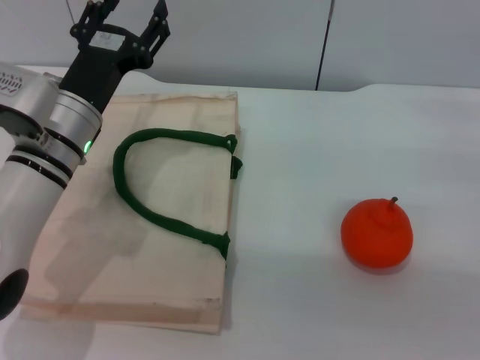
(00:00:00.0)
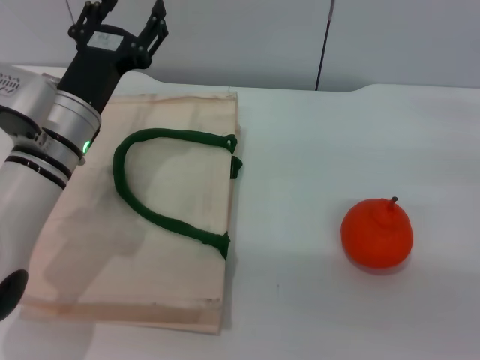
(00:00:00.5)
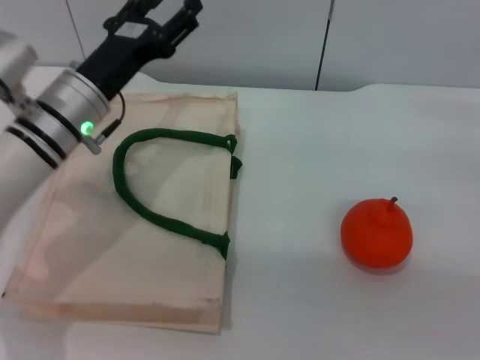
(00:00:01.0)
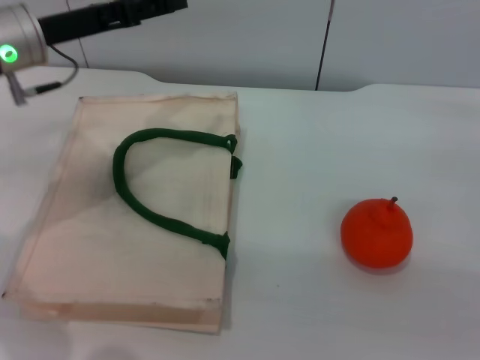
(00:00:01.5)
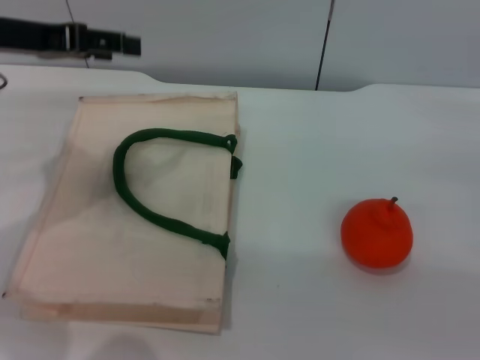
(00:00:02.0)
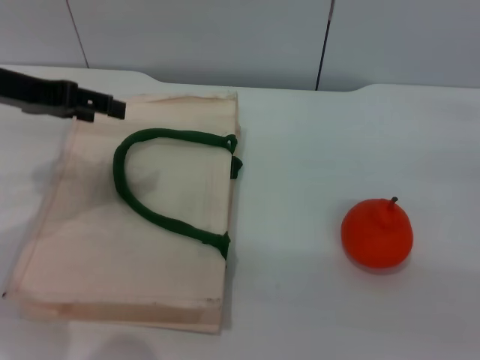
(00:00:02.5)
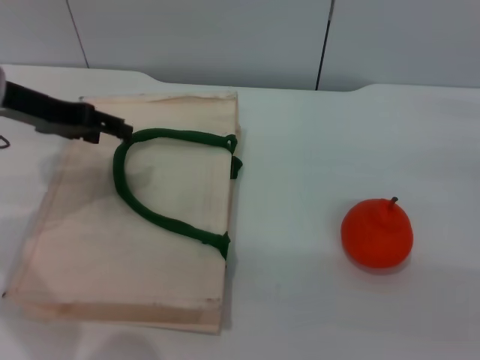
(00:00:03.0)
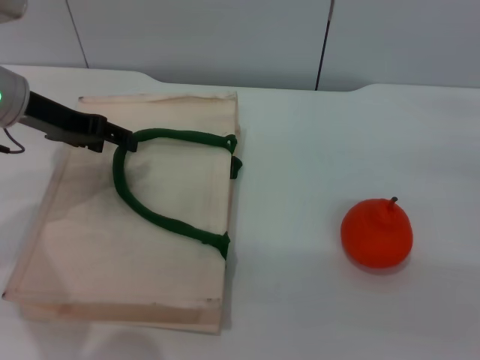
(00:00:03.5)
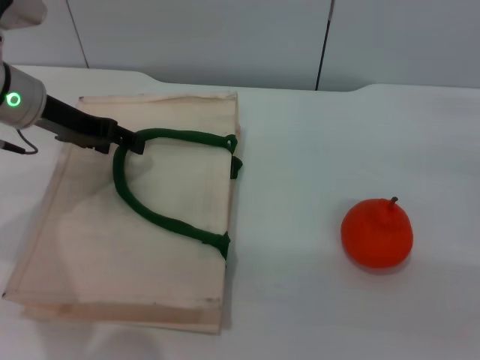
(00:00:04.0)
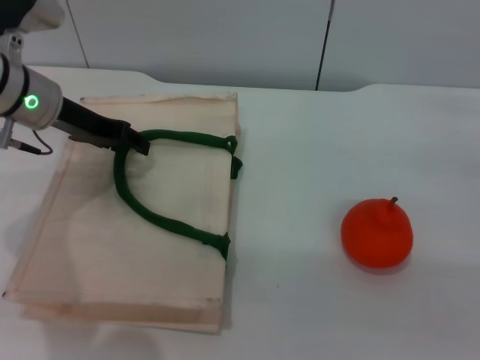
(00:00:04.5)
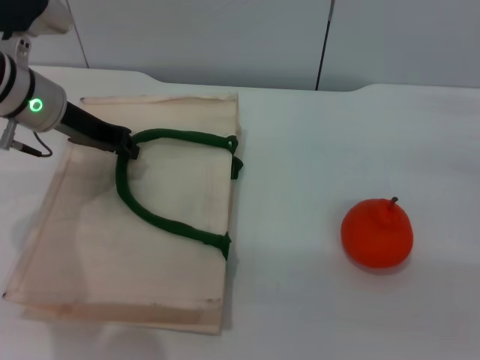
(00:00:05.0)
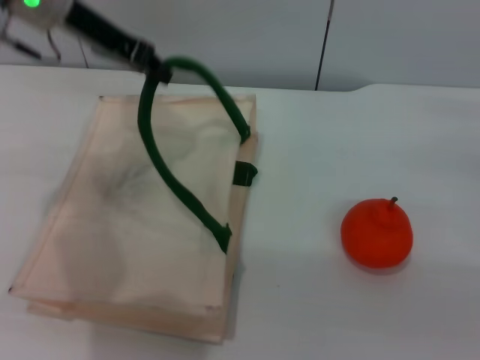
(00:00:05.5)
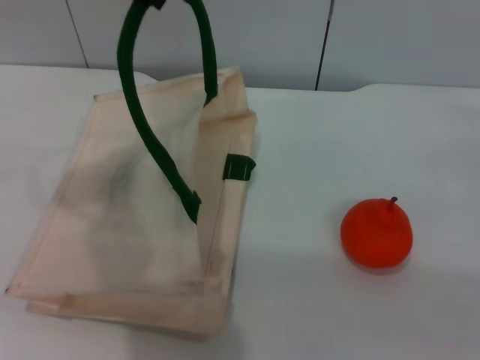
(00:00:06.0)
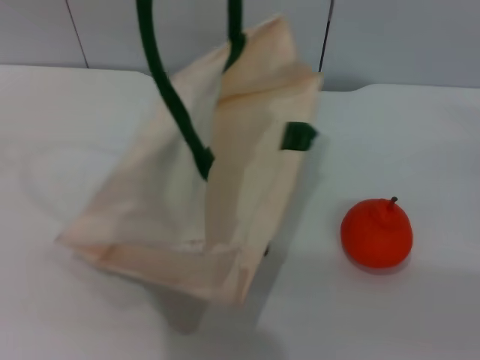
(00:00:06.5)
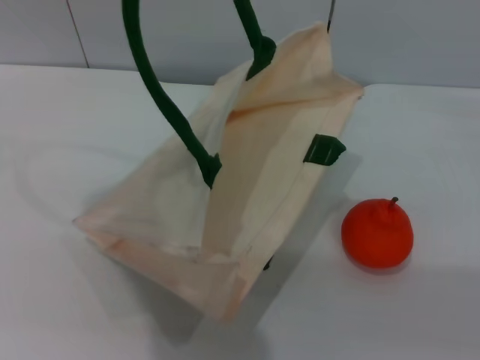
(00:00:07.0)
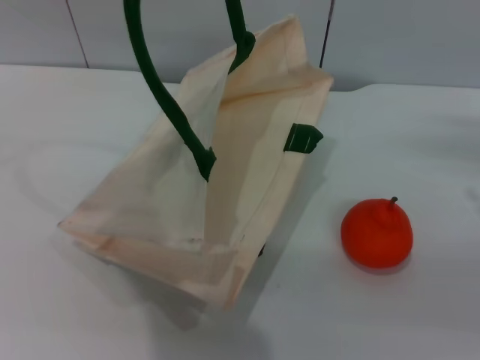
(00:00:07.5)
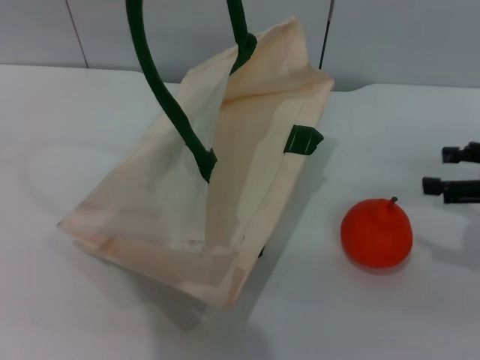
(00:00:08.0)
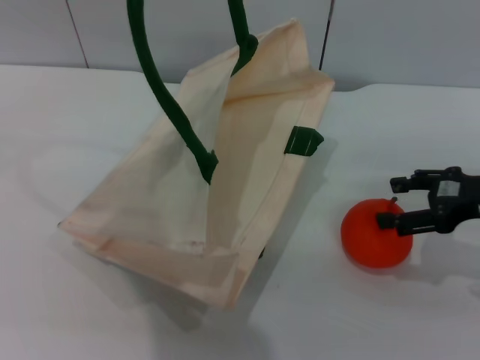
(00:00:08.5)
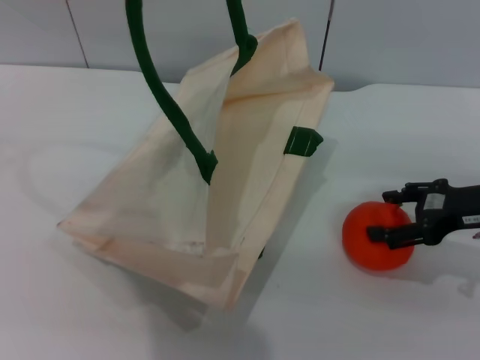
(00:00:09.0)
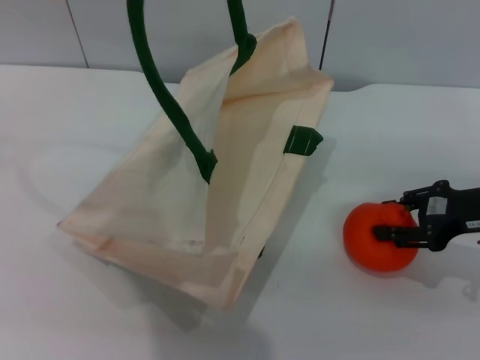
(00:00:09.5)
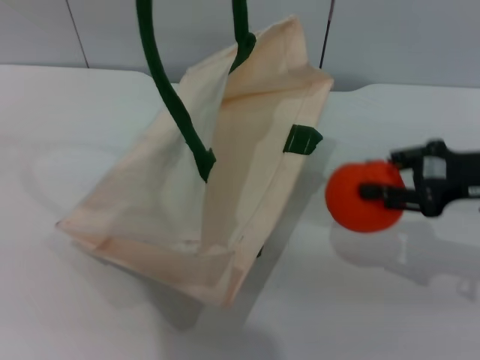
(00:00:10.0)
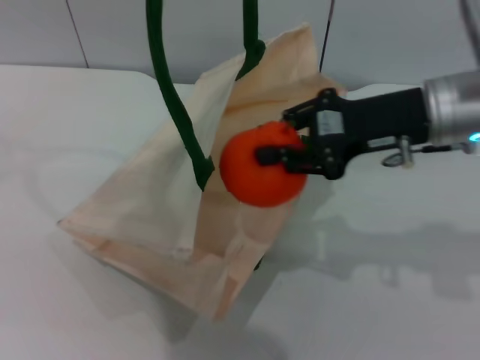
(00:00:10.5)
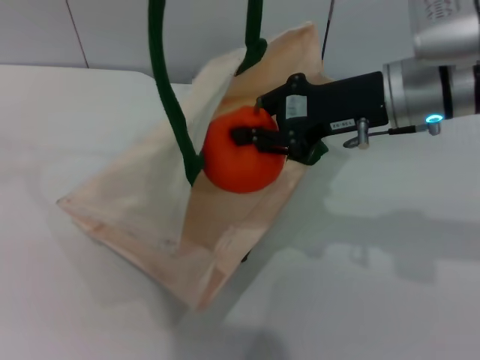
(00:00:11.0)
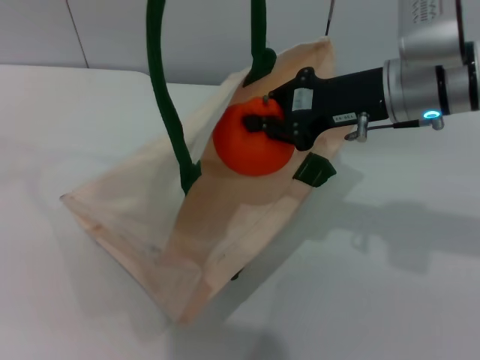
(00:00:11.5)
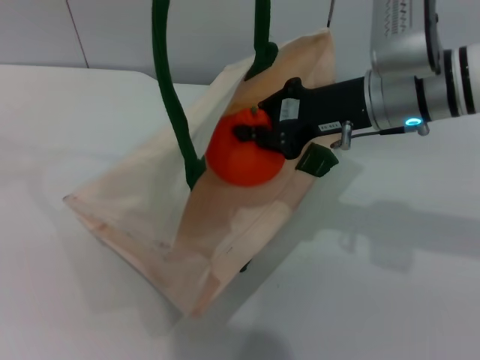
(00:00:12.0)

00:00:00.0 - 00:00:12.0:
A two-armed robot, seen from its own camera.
Task of the whole recording: pick up the orange from the table and place it in the white handbag.
Step, 00:00:00.0 - 00:00:06.5: Lift the woven bag with the left gripper to open it.
Step, 00:00:07.0 - 00:00:10.0: Pick up the orange with the right gripper.
00:00:00.0 - 00:00:02.0: The left gripper goes roughly 15 cm upward and to the left.
00:00:02.0 - 00:00:04.0: The left gripper shifts approximately 5 cm downward.
00:00:04.0 - 00:00:06.0: The left gripper is displaced upward by approximately 20 cm, and closes.
00:00:06.0 - 00:00:08.0: The left gripper shifts by some 5 cm.
00:00:08.0 - 00:00:10.0: The right gripper travels to the left by roughly 5 cm, and closes.
00:00:10.0 - 00:00:12.0: The right gripper heads to the left, covering about 15 cm, and closes up.

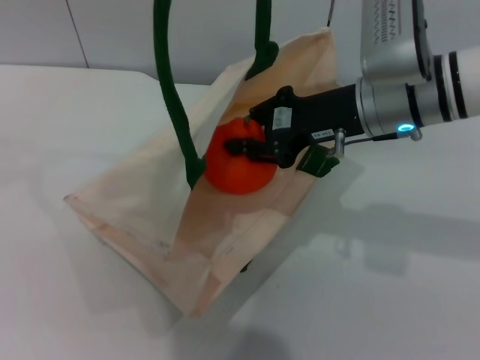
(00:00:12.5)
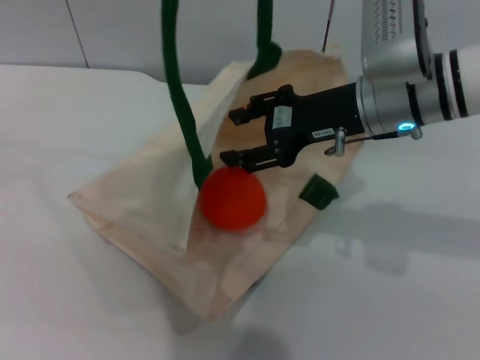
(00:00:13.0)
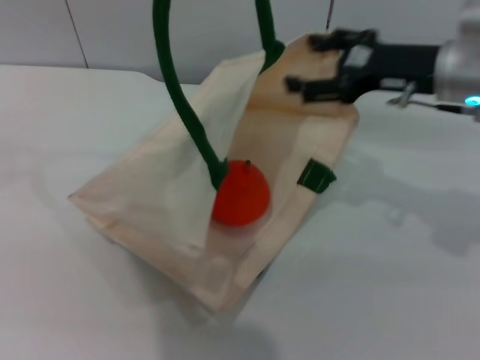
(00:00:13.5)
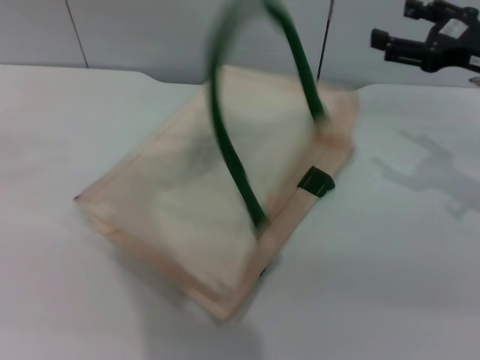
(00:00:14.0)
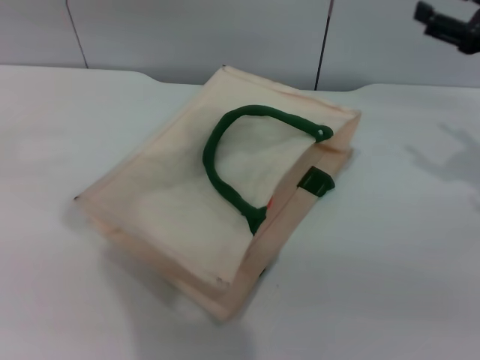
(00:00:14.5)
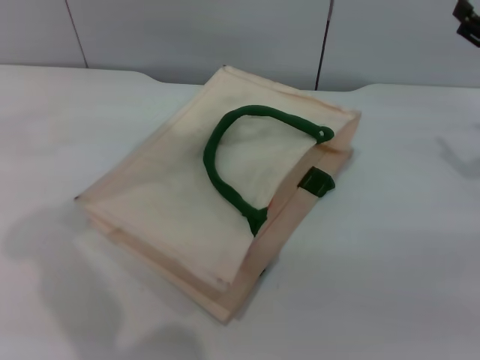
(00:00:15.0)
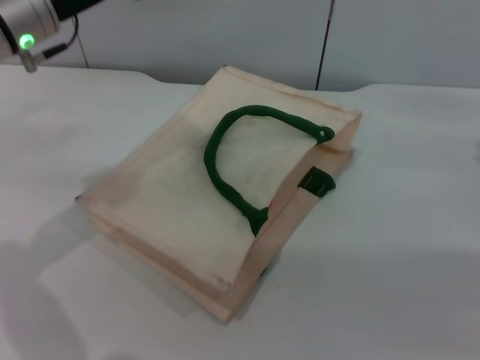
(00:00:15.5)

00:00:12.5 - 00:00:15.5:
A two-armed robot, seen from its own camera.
Task of the whole recording: pick up the orange from the table and place it in the white handbag.
Step, 00:00:13.5 - 00:00:14.0: Lower the woven bag with the left gripper to close it.
00:00:12.5 - 00:00:14.0: The right gripper travels to the right by some 15 cm, and opens its fingers.
00:00:14.0 - 00:00:15.5: The right gripper shifts about 10 cm downward and to the right; the left gripper heads downward, covering roughly 20 cm, and opens.

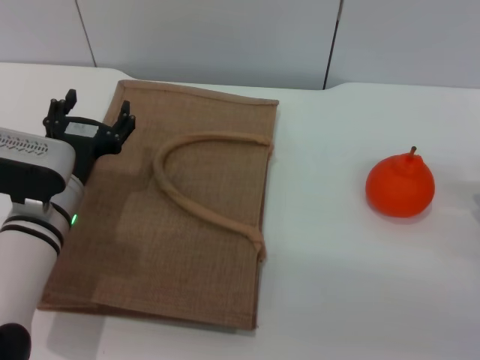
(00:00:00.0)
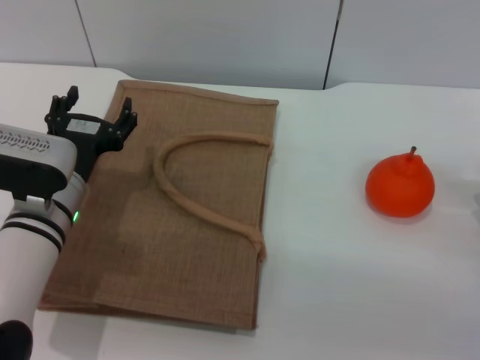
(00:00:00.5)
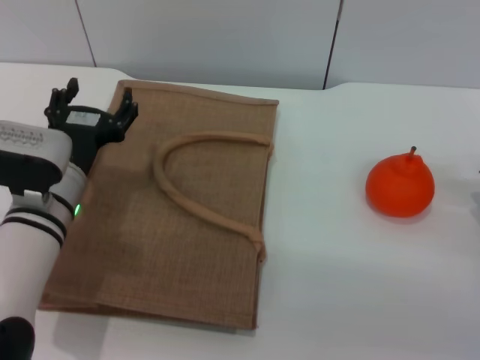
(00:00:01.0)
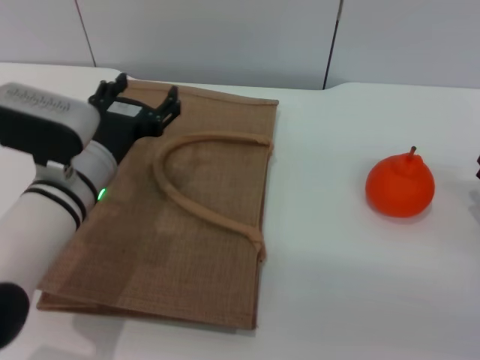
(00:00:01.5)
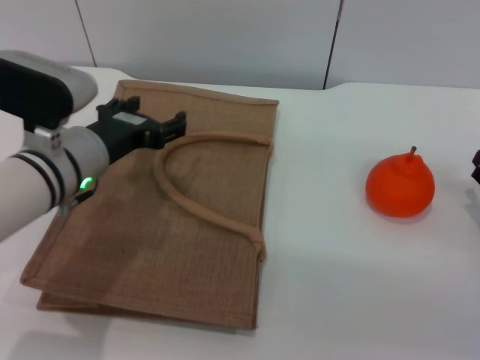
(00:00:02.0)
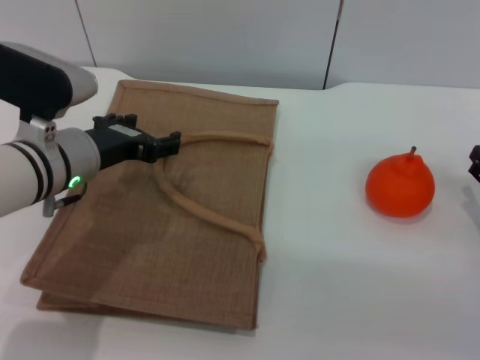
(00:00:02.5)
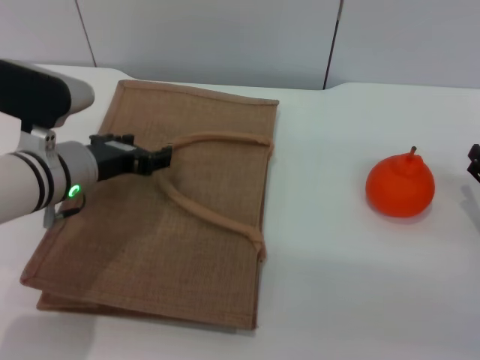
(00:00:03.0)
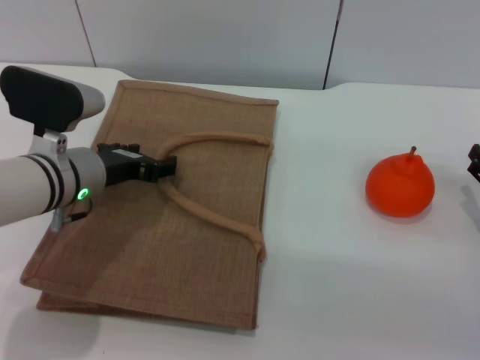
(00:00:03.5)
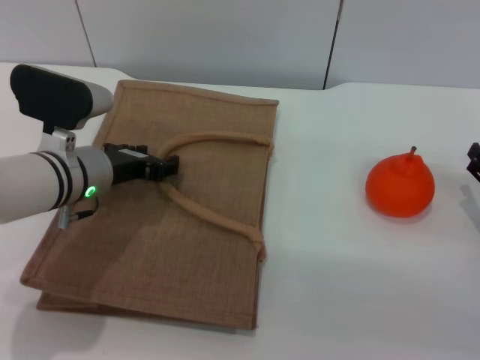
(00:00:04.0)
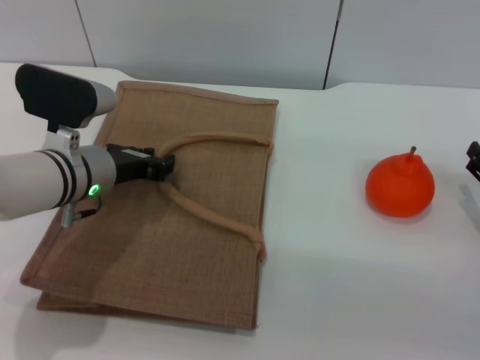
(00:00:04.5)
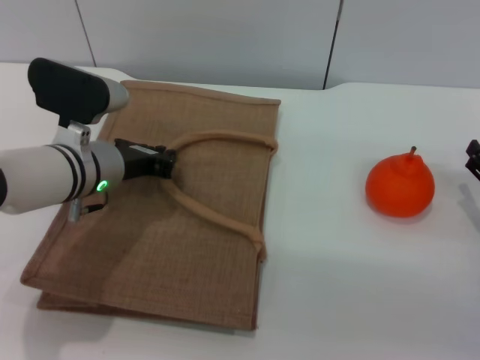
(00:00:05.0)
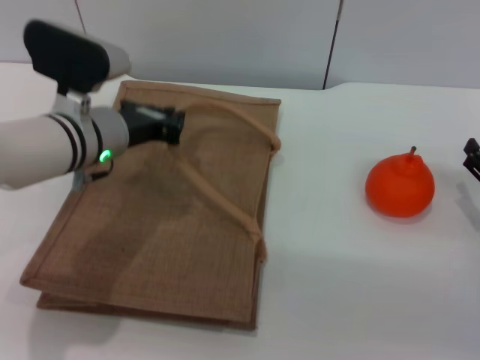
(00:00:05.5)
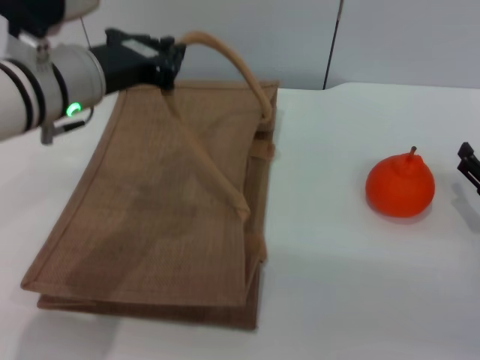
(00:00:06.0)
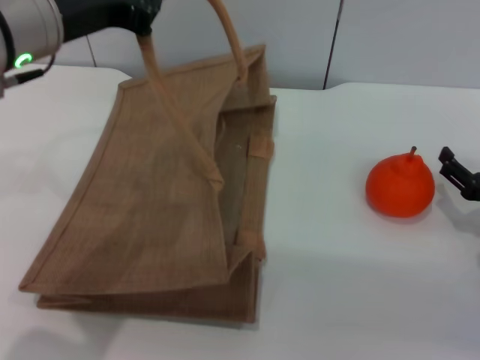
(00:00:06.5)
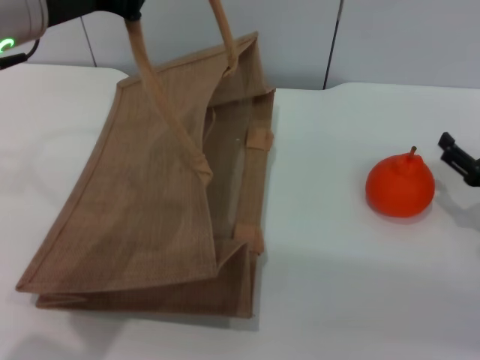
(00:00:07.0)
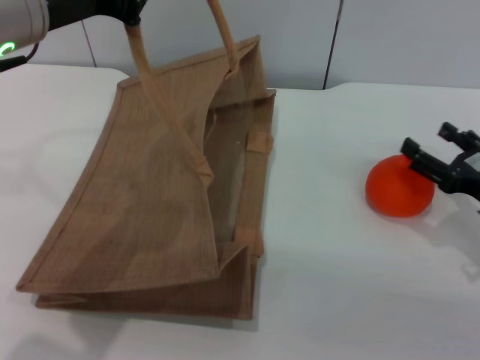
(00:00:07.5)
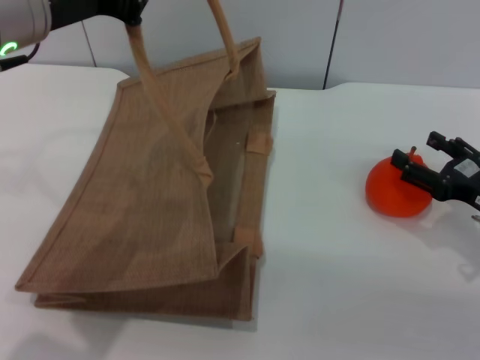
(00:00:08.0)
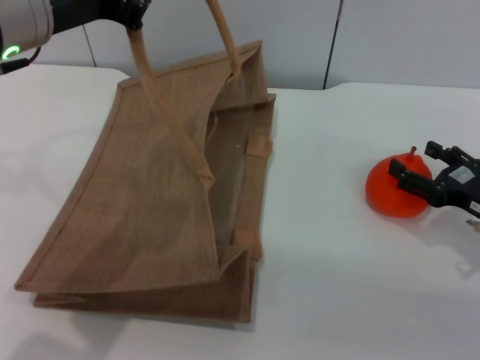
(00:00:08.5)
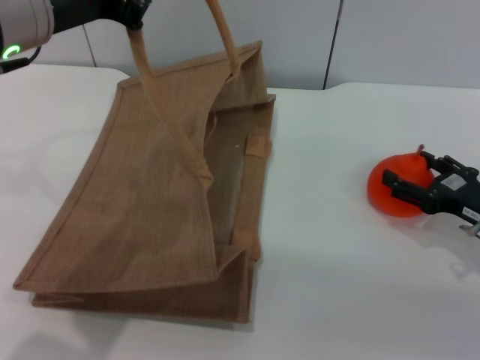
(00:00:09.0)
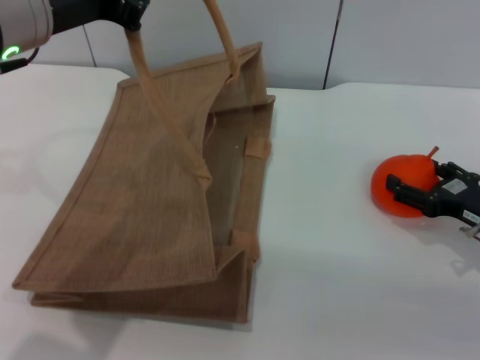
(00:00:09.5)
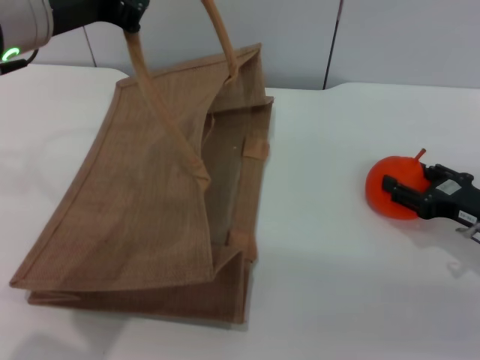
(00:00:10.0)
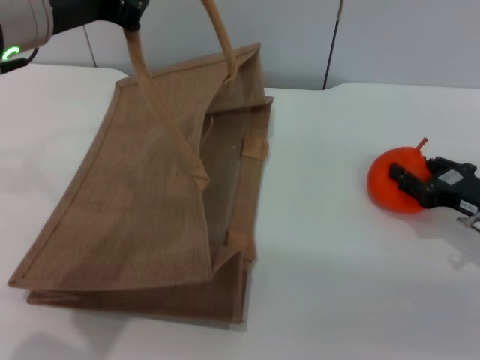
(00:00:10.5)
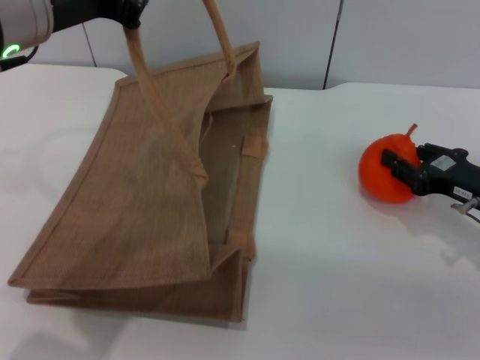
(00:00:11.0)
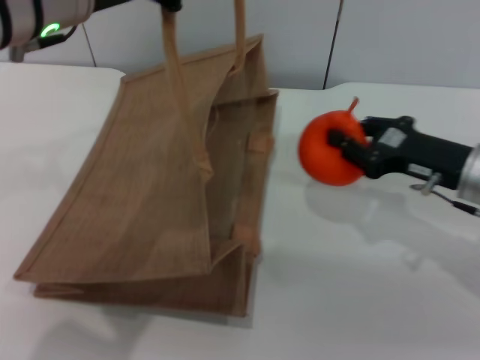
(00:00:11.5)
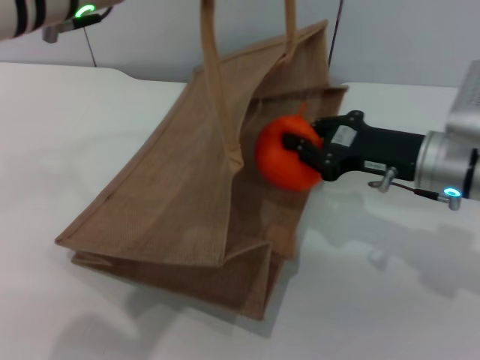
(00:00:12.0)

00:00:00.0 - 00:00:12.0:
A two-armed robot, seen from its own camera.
Task of the whole recording: pick up the orange from the table and place it in the brown handbag.
Step, 00:00:00.0 - 00:00:06.5: Lift the woven bag with the left gripper to open it.
Step, 00:00:07.0 - 00:00:11.0: Pick up the orange with the right gripper.
00:00:00.0 - 00:00:02.0: The left gripper goes some 5 cm upward.
00:00:02.0 - 00:00:04.0: The grippers move only a little.
00:00:04.0 - 00:00:06.0: The left gripper heads upward, covering some 10 cm, and closes its fingers.
00:00:06.0 - 00:00:08.0: The left gripper shifts roughly 10 cm upward.
00:00:08.0 - 00:00:10.0: The grippers move only a little.
00:00:10.0 - 00:00:12.0: The left gripper moves to the right, approximately 5 cm. Meanwhile the right gripper is displaced to the left and upward by some 10 cm, and closes its fingers.
